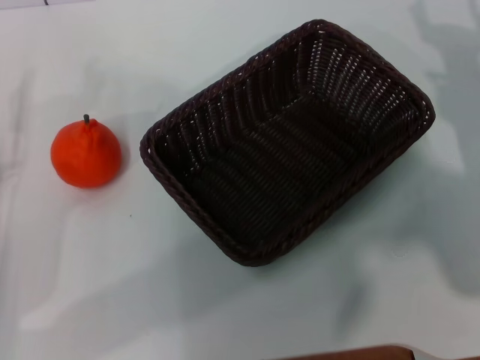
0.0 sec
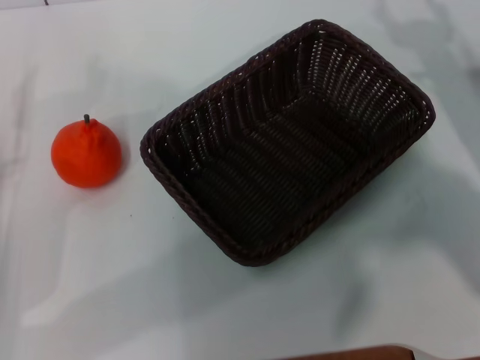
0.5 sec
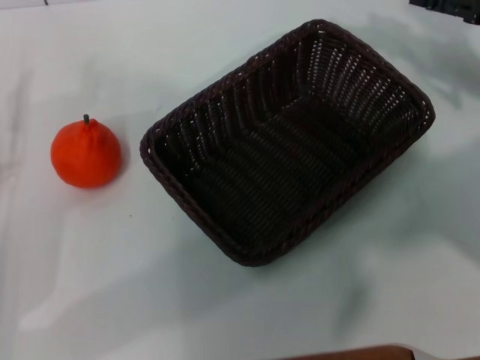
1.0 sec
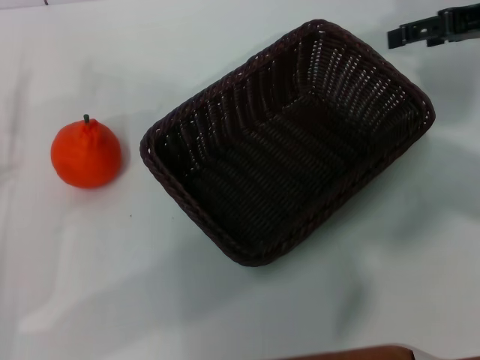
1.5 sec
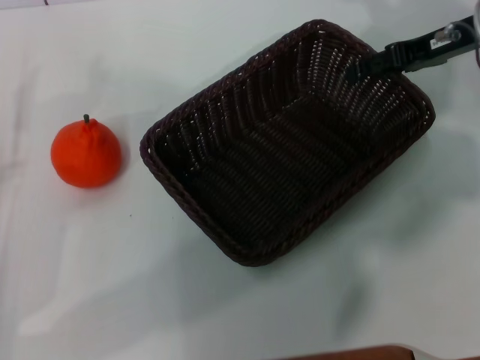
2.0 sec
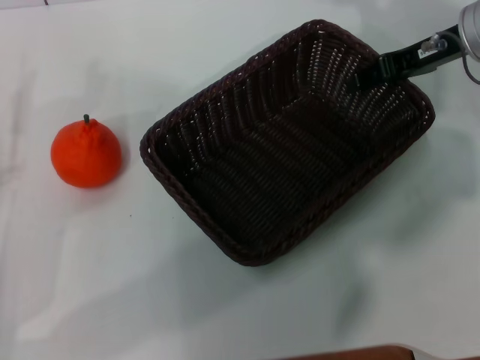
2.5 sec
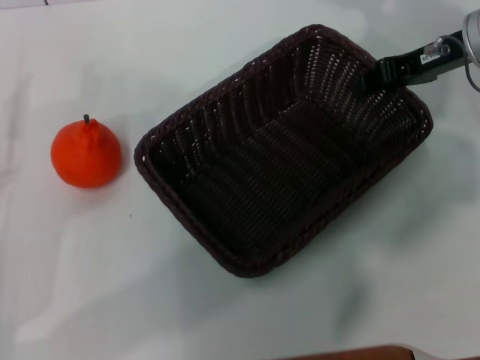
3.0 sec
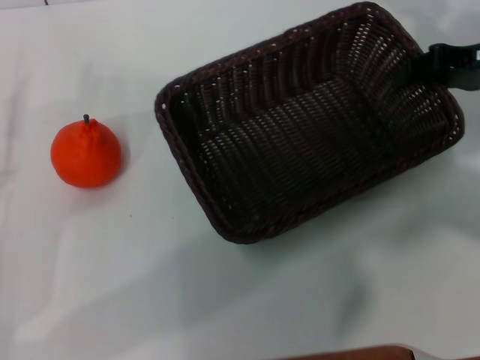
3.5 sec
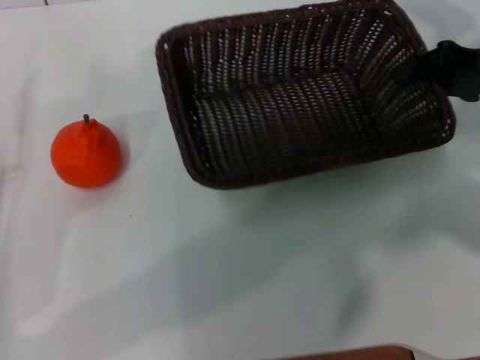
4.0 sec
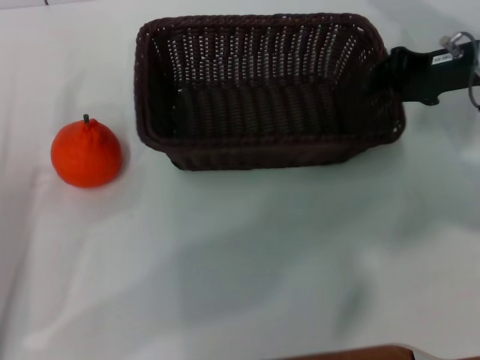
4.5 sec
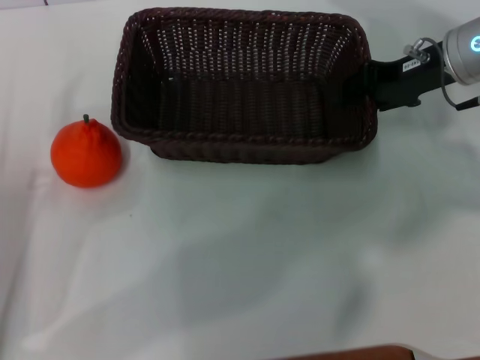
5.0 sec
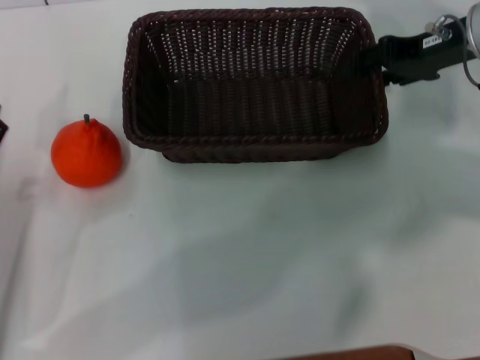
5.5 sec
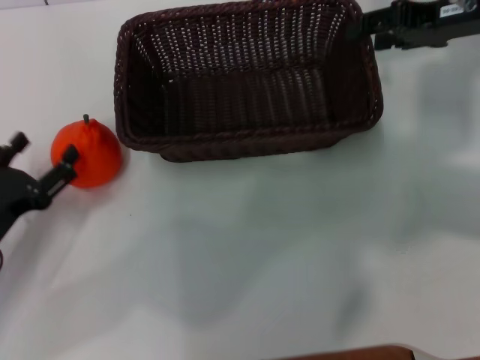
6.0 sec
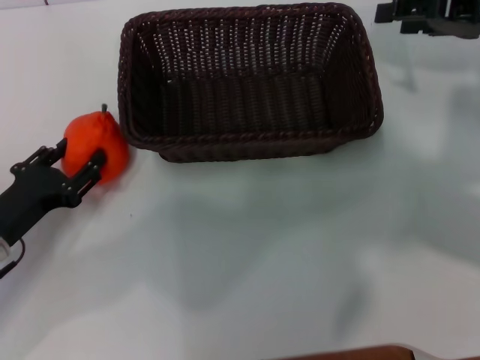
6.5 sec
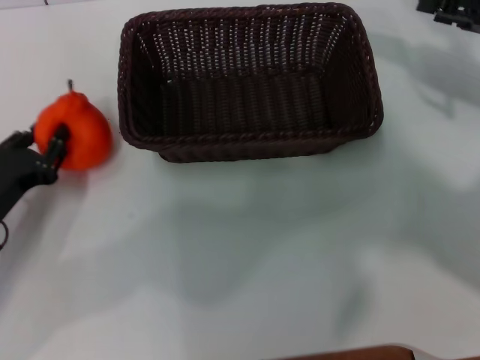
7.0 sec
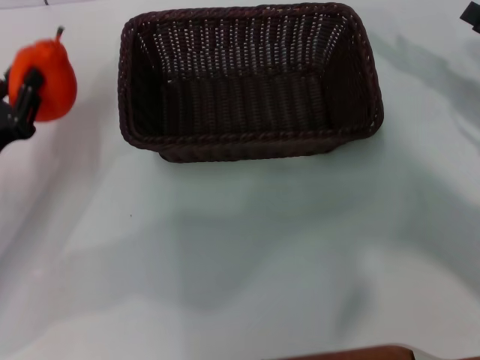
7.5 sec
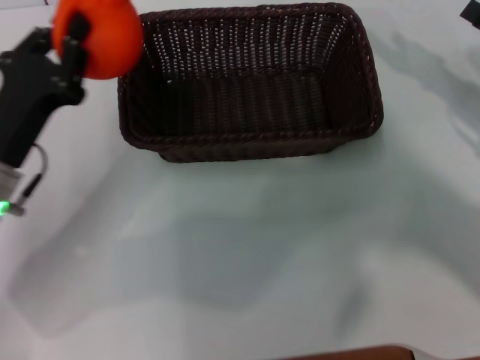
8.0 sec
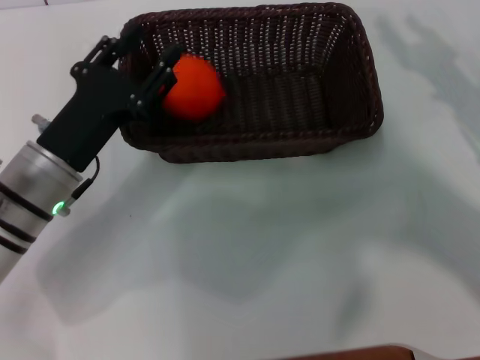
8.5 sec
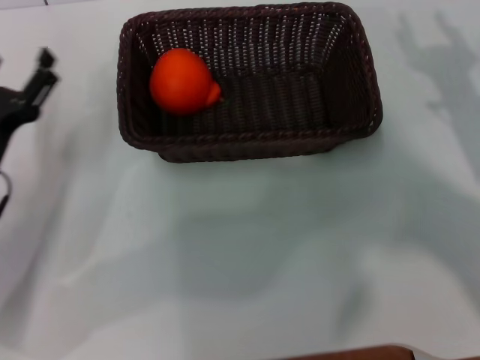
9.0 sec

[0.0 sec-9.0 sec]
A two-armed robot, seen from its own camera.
Task of the whole recording: the right gripper pick up the black basket and place it horizontally in the middle of the table, the left gripper pick up the orange and place it into the black basket.
Step, 0.0 sec to 3.0 sec: Pick up the dark basket with the right gripper.
Step, 3.5 sec to 6.0 sec: Place the dark basket in the center of view with the right gripper.
Step, 6.5 sec to 7.5 sec: Pick up the orange with the left gripper.
Step, 8.0 sec to 8.5 sec: Place the orange into the dark basket with the left gripper.
0.0 sec to 2.0 sec: The right gripper goes some 15 cm forward and upward.
2.0 sec to 4.5 sec: The right gripper closes.
4.5 sec to 7.0 sec: The left gripper closes up. Meanwhile the right gripper moves backward and to the right, about 10 cm, and opens up.
7.0 sec to 9.0 sec: The right gripper moves downward and backward, some 10 cm. The left gripper goes to the right and returns, approximately 10 cm each way, and opens its fingers.
